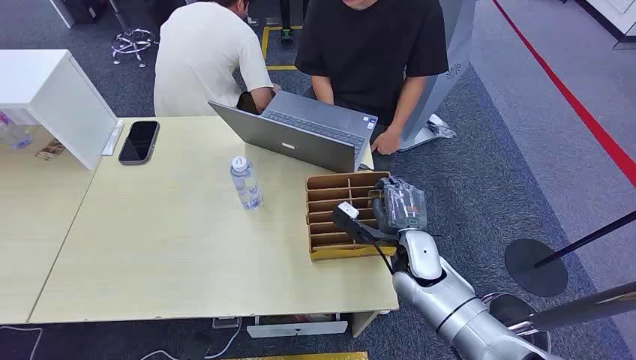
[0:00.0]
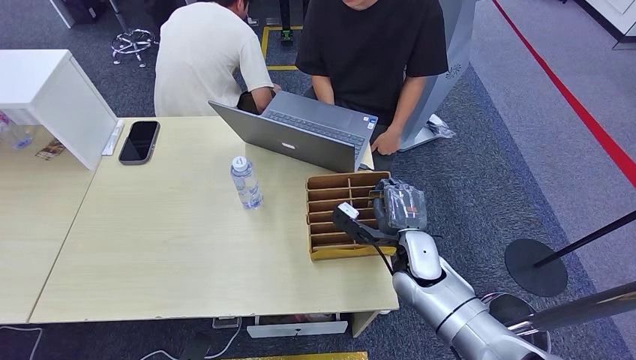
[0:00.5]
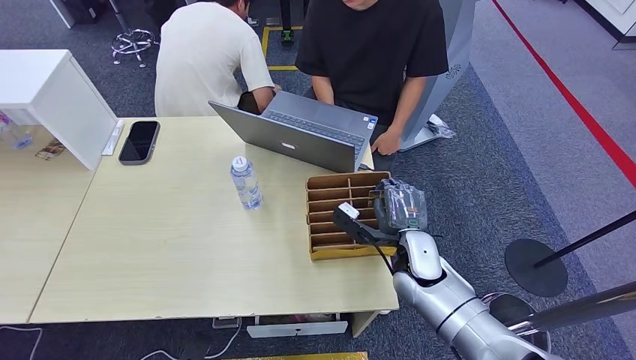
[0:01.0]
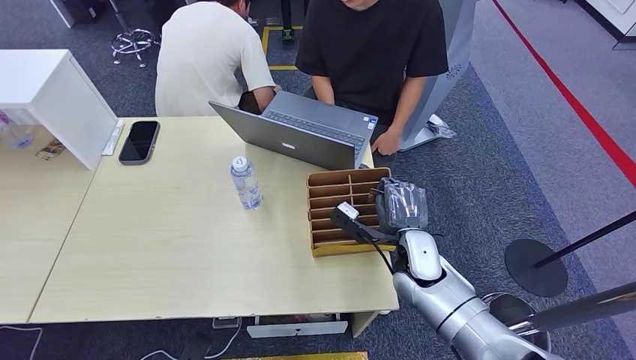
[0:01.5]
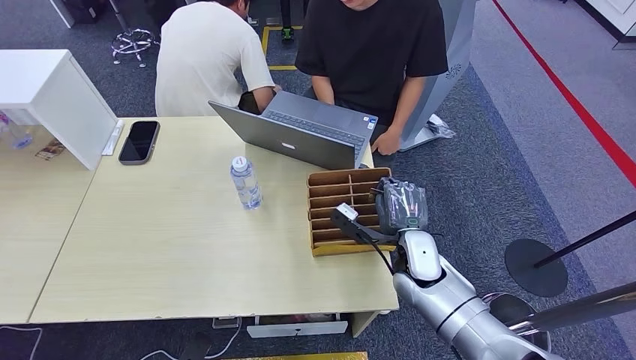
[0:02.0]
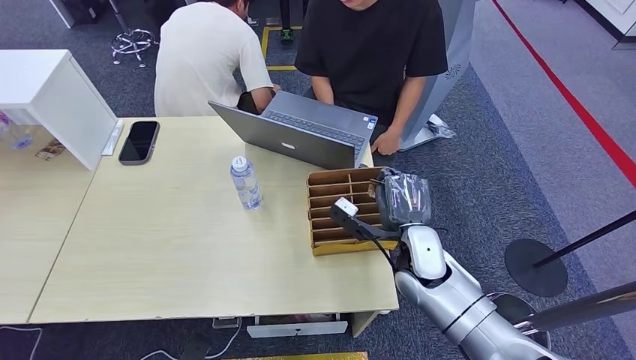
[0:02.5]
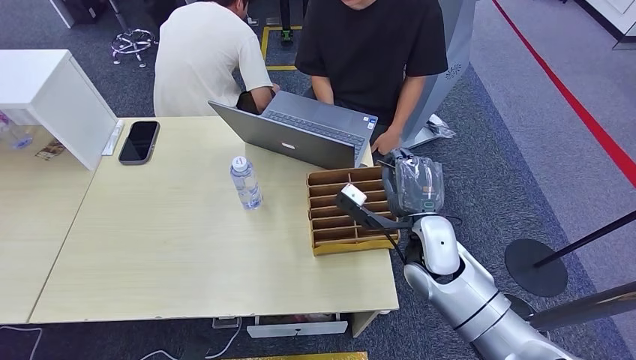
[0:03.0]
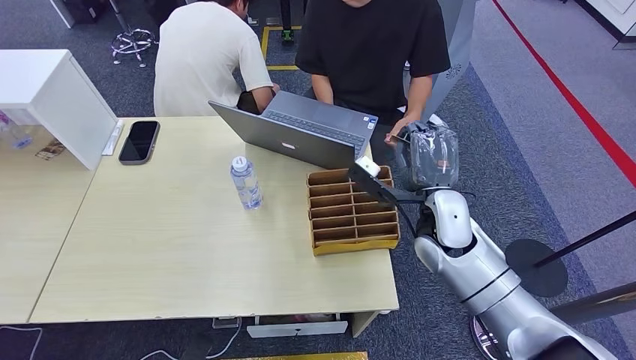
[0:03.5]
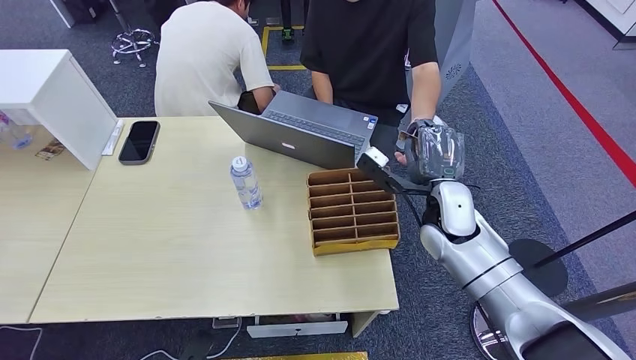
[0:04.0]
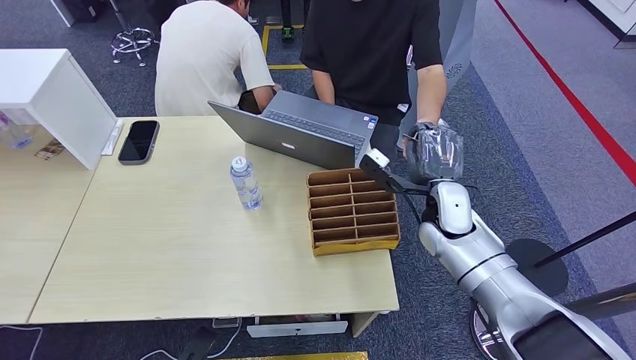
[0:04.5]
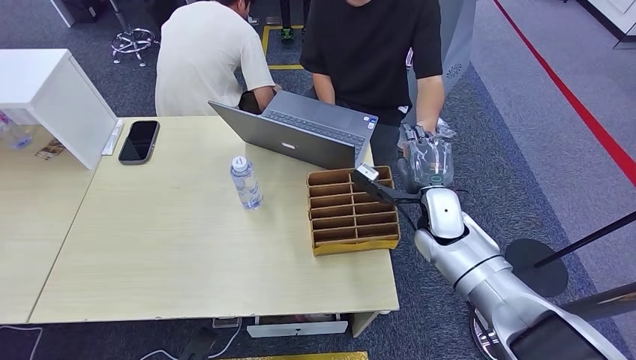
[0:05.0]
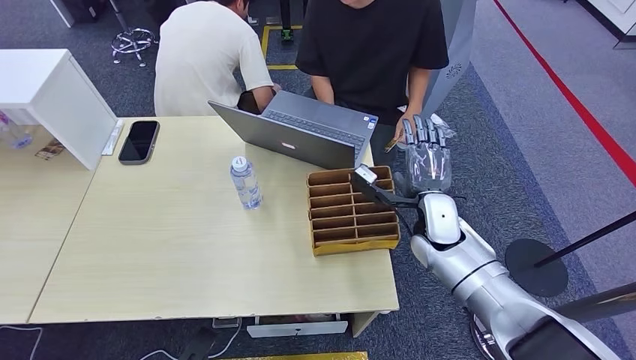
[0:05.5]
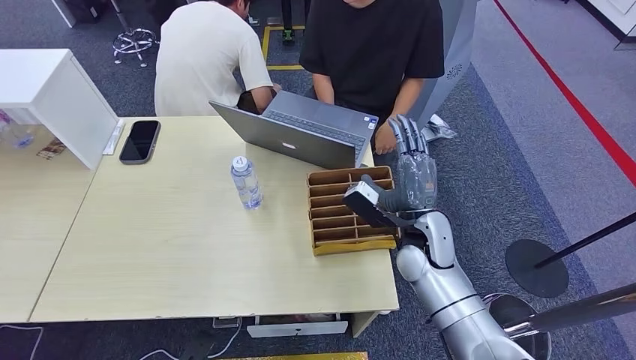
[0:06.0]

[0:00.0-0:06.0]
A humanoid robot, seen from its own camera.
Step, 0:00.0 to 0:03.0: Pick up the key card from the card box.
Step, 0:03.5 to 0:06.0: Hand the key card to the target.
0:02.0 to 0:04.0: The right hand is displaced upward by approximately 10 cm.
0:04.0 to 0:06.0: The right hand moves about 5 cm.
